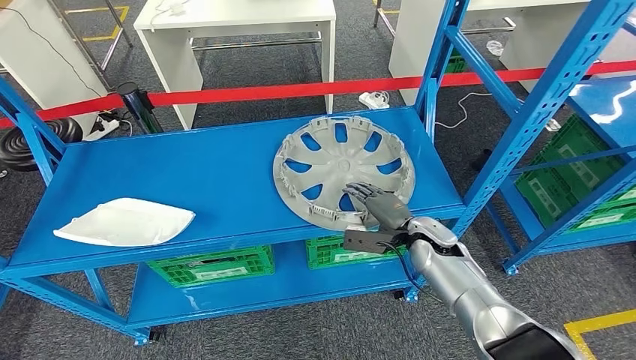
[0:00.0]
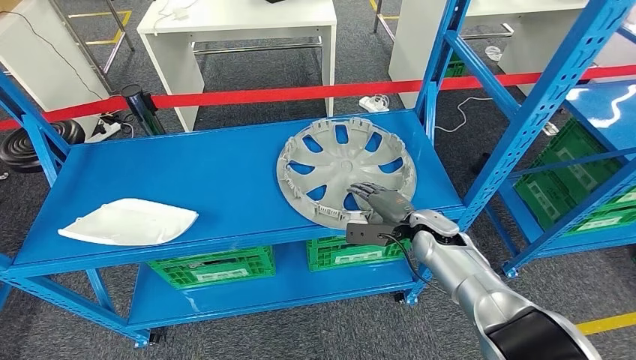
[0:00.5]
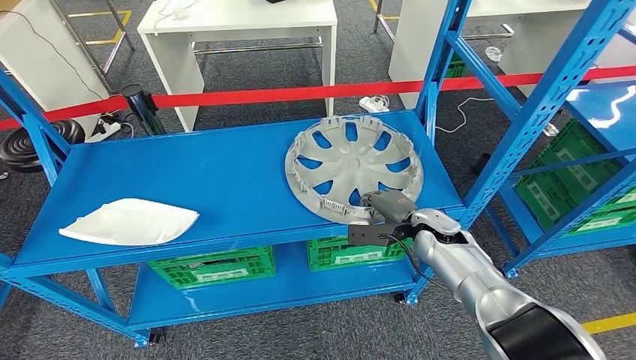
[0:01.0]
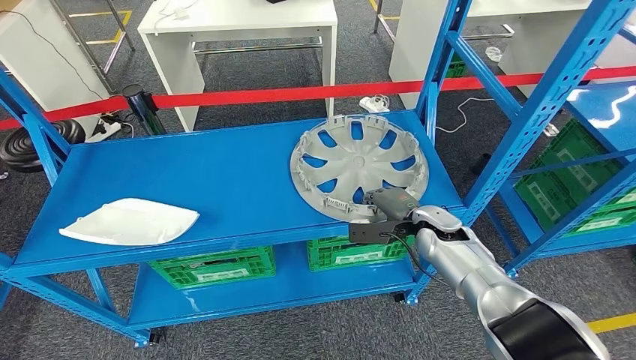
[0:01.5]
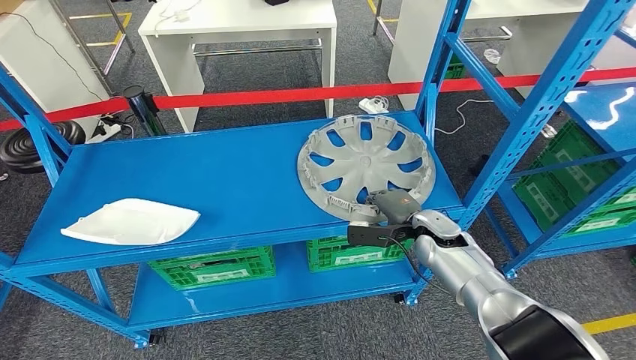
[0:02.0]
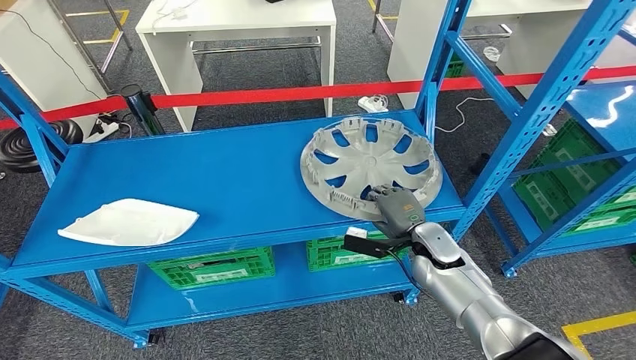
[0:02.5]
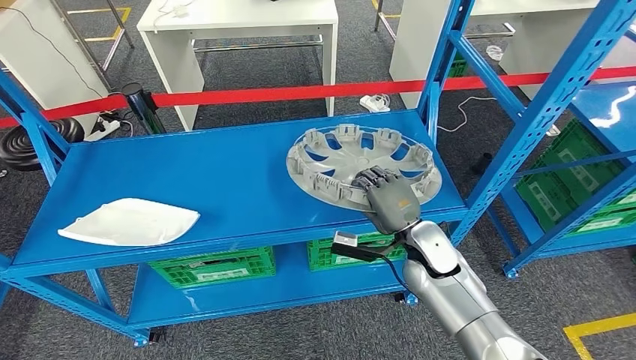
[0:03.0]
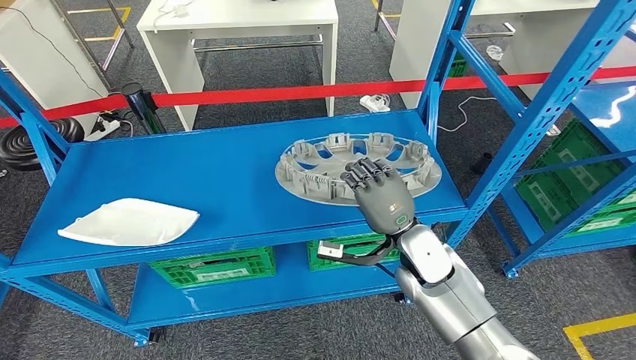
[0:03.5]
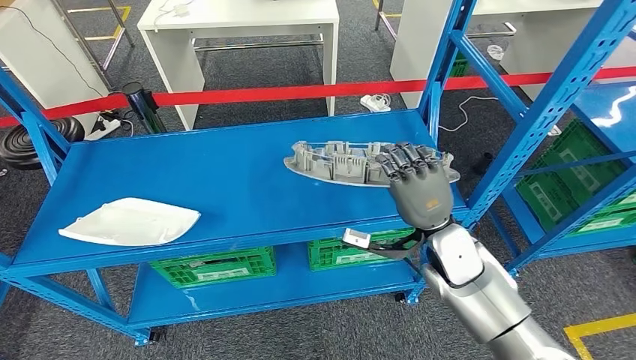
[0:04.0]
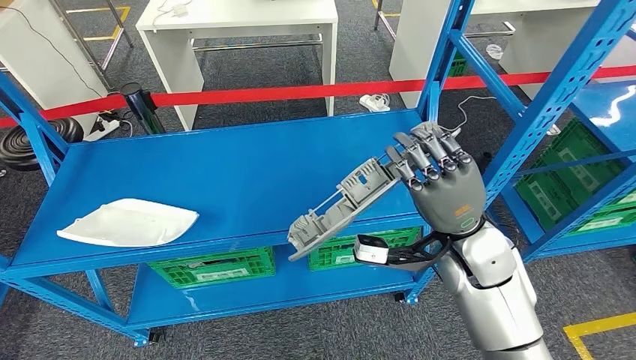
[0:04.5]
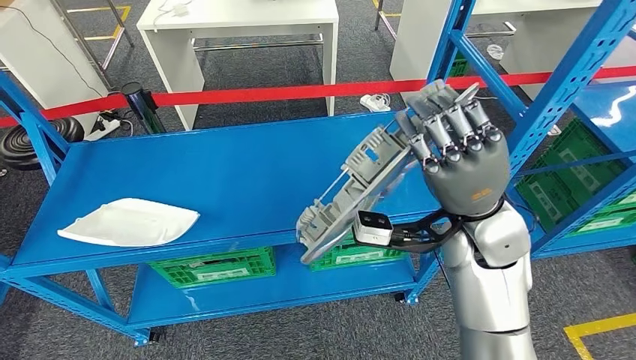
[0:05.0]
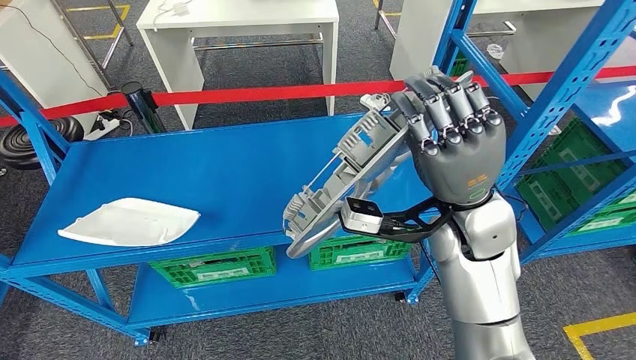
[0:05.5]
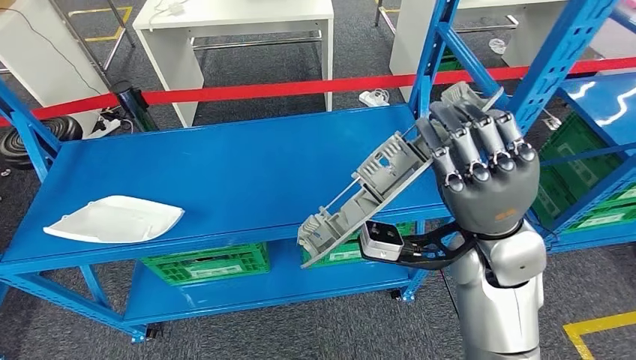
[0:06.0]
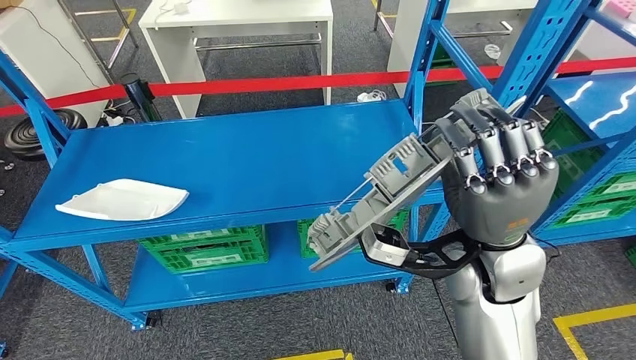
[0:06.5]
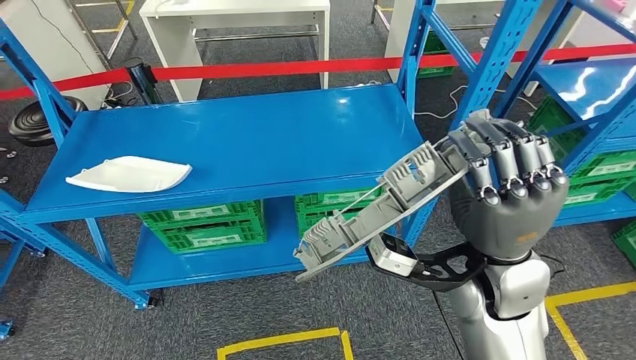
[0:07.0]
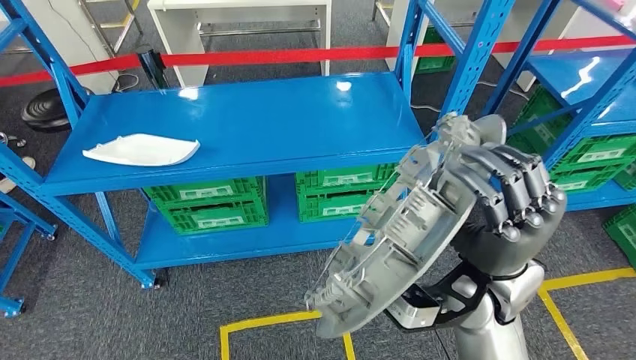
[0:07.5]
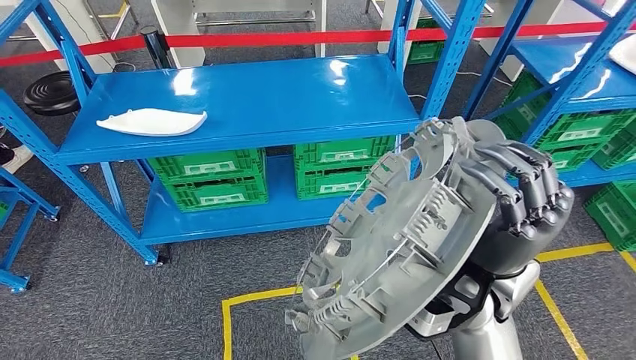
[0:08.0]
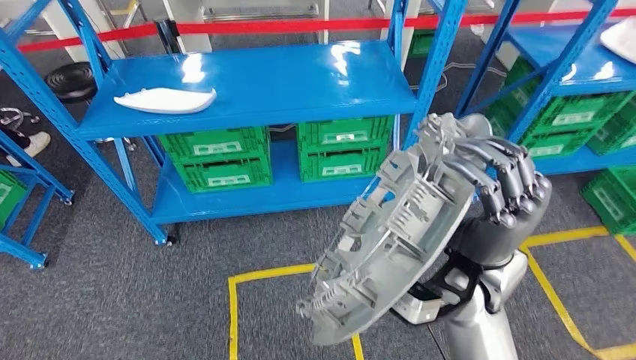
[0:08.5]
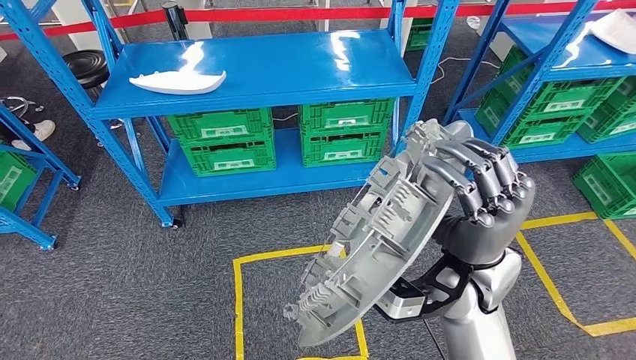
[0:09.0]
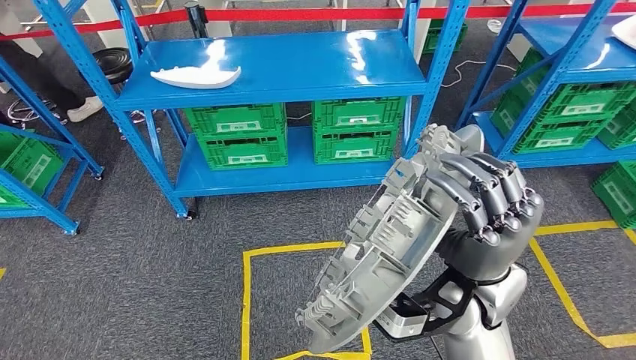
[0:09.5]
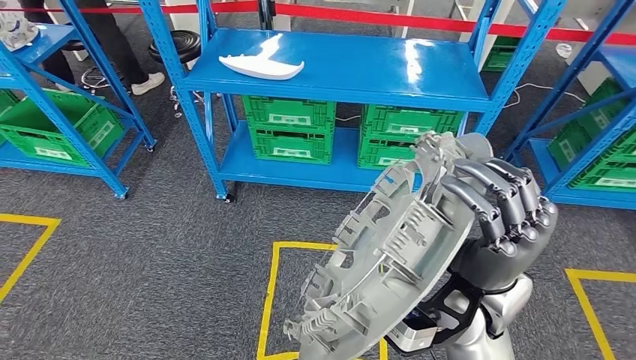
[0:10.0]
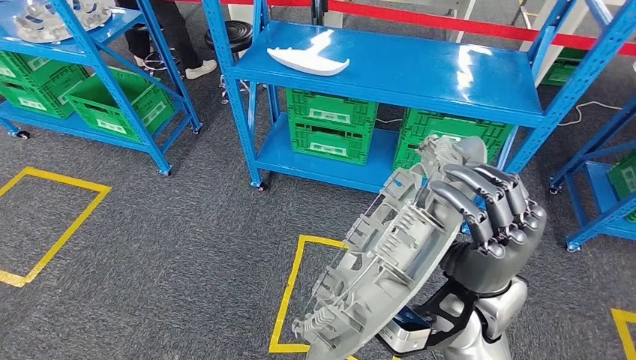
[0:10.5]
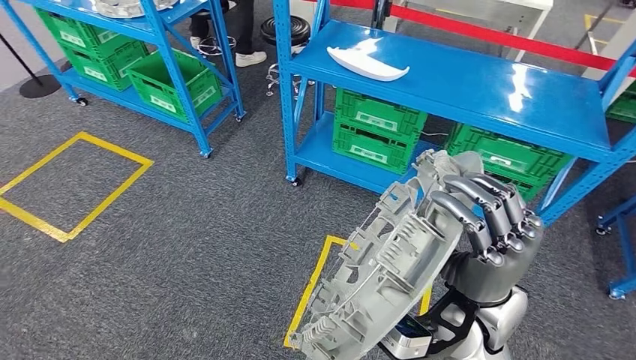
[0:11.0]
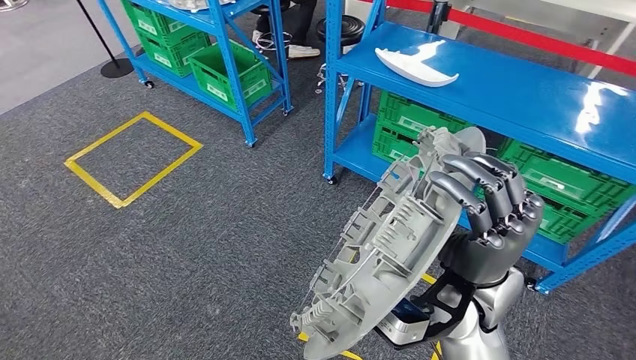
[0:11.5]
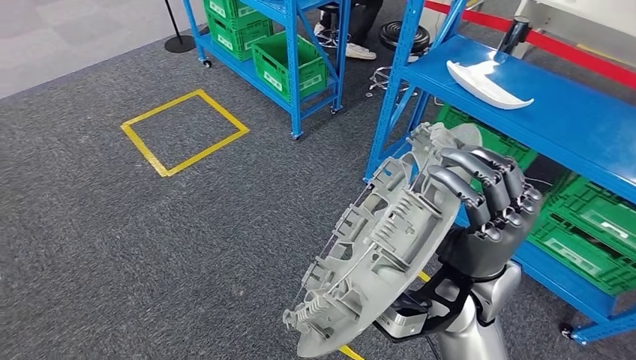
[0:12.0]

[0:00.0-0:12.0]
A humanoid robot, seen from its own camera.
Step, 0:00.0 to 0:03.5: Pick up the small parts from the shelf.

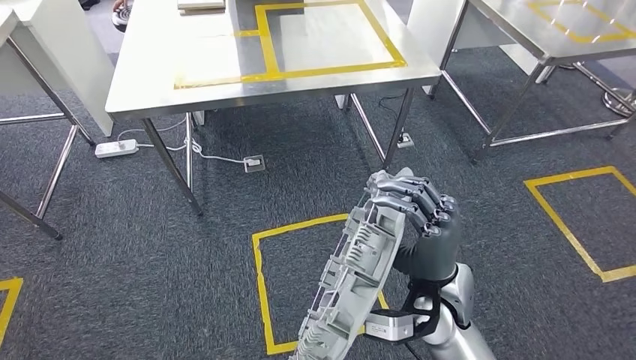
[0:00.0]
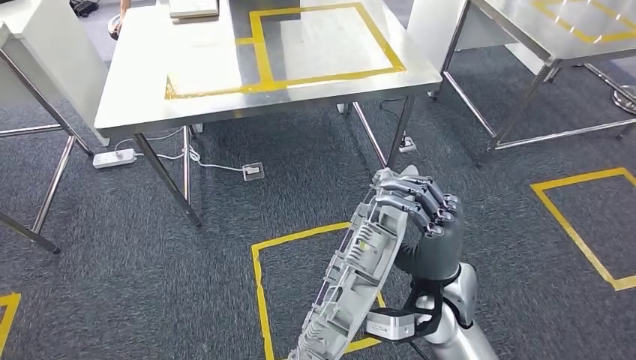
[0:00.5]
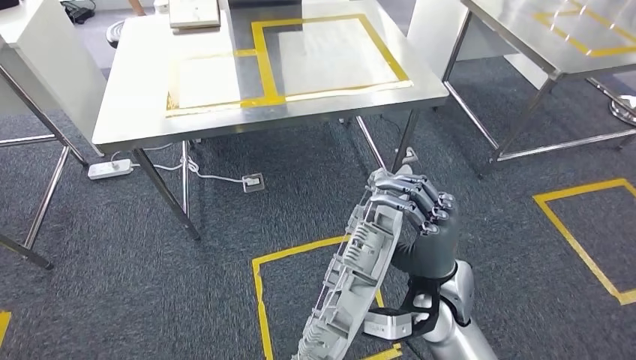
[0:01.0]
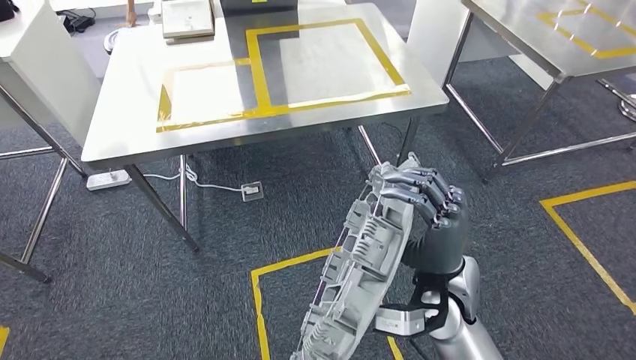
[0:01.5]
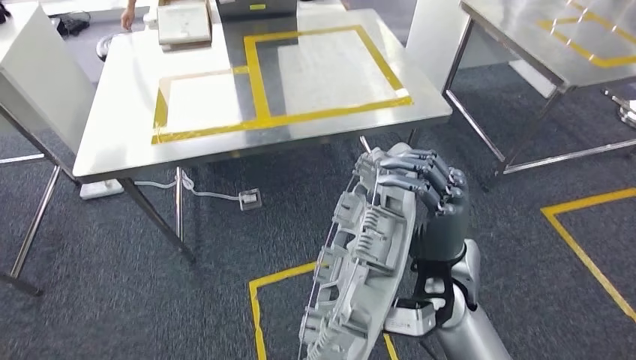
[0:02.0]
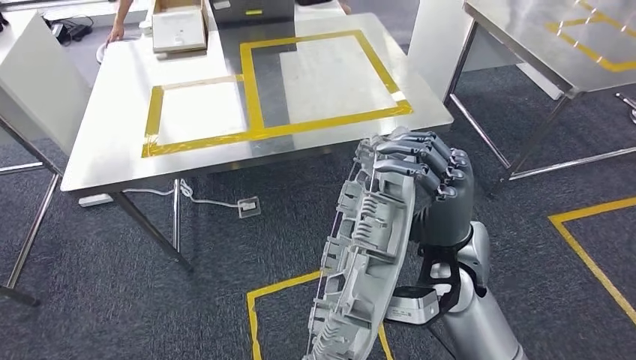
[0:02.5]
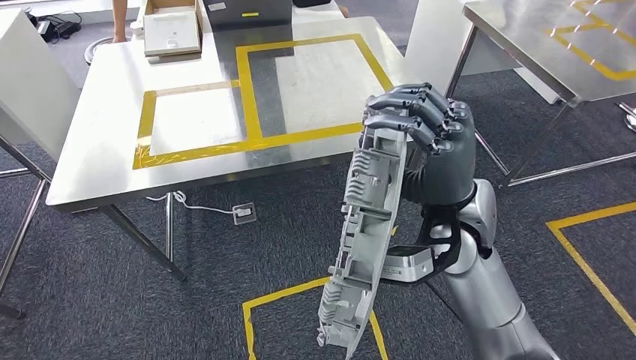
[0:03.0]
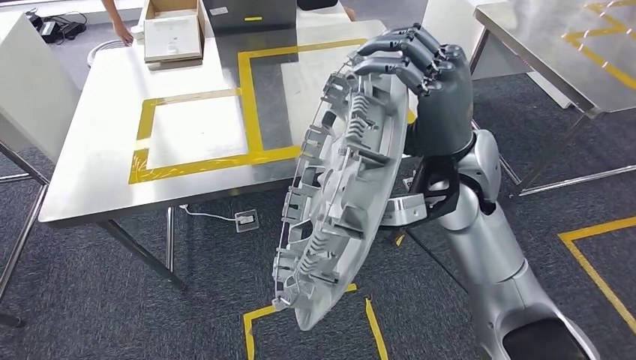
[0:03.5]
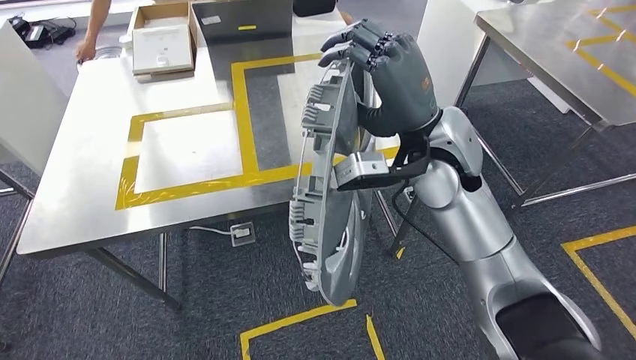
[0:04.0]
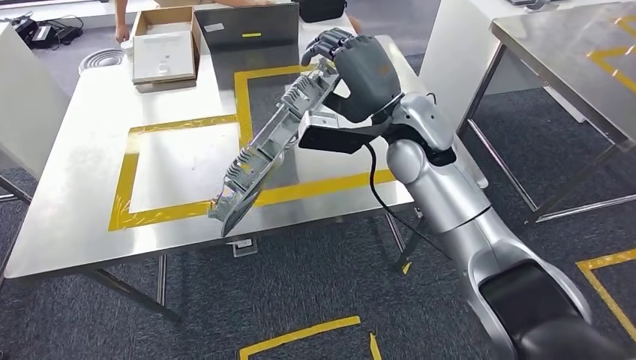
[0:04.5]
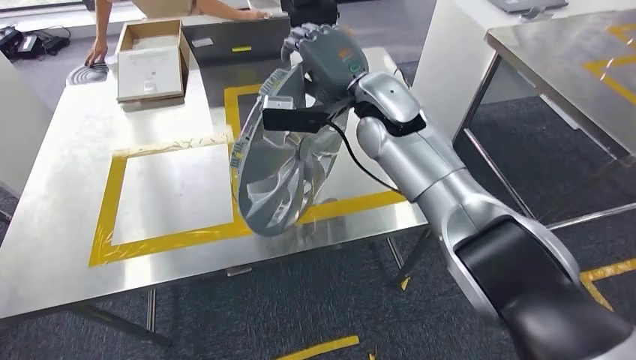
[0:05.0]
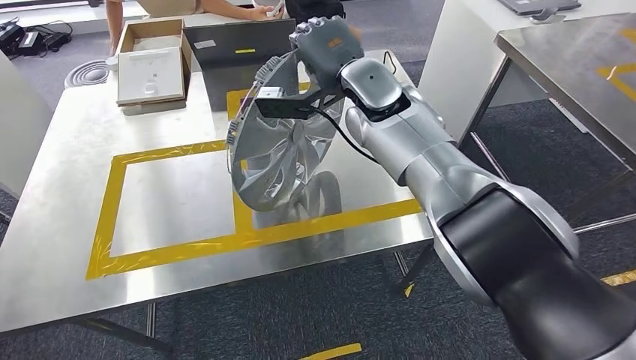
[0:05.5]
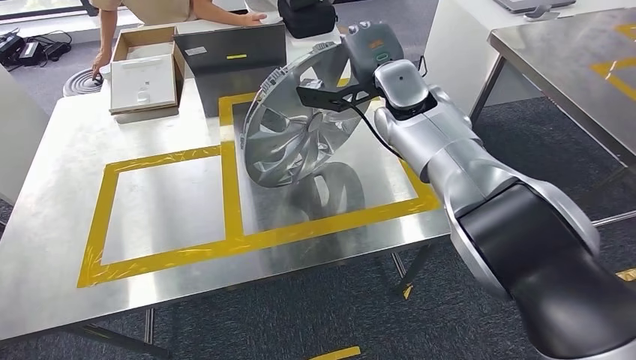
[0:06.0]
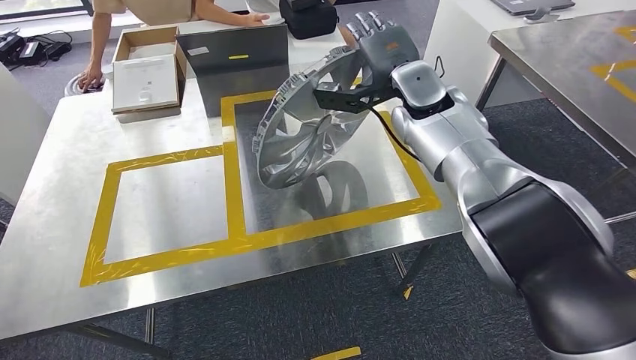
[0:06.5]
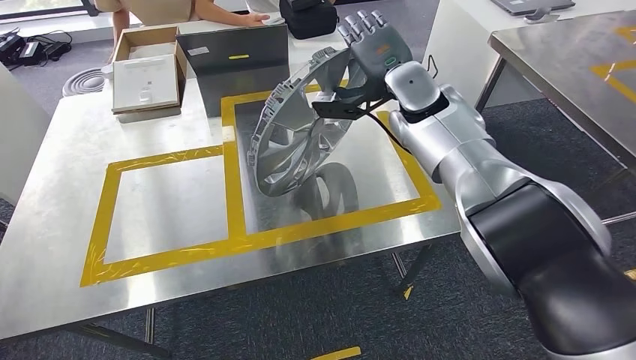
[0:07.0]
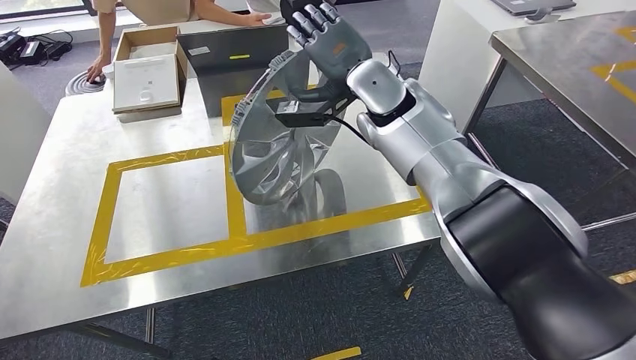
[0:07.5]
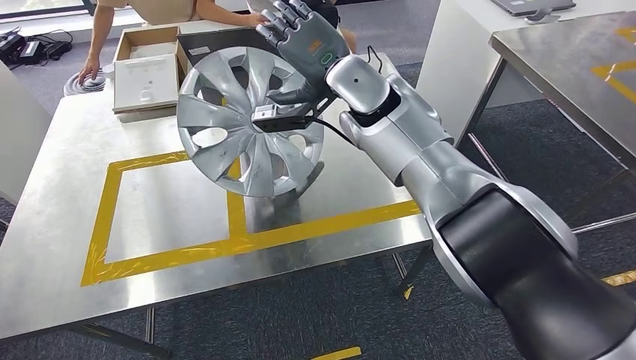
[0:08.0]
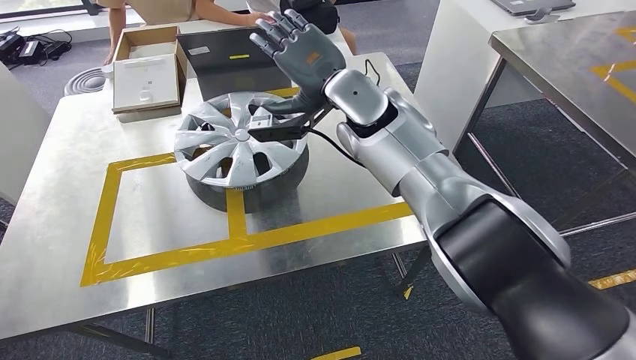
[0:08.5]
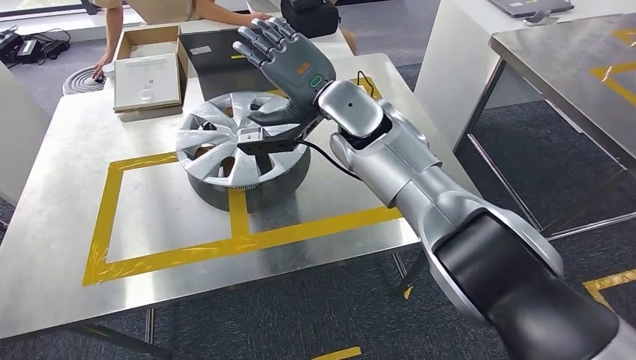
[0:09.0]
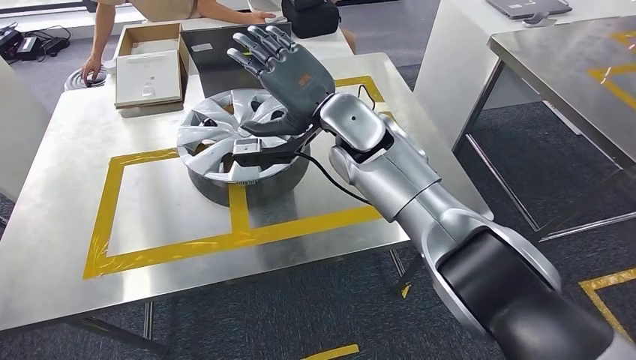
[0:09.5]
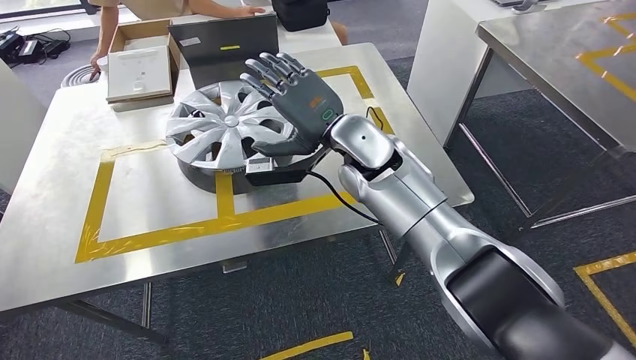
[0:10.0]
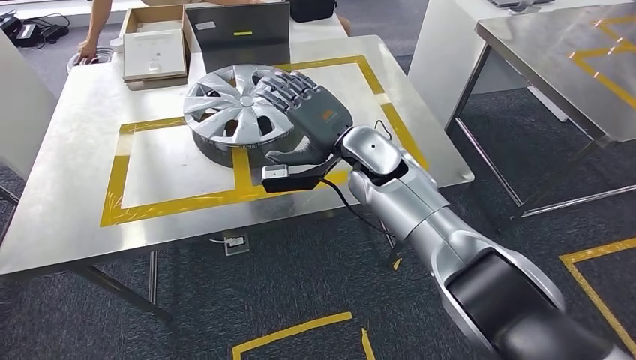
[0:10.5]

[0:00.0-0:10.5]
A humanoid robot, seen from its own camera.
Step, 0:00.0 to 0:05.0: Move the small parts to the workbench.
Step, 0:05.5 to 0:10.0: Insert the small parts into the corresponding holes on the workbench.
